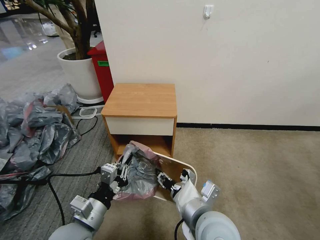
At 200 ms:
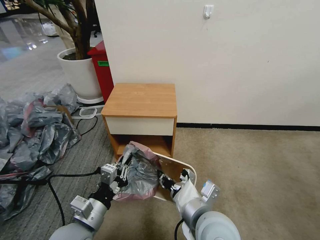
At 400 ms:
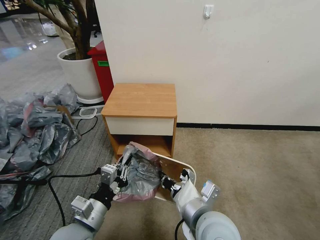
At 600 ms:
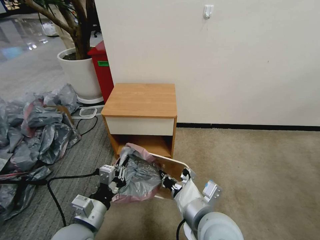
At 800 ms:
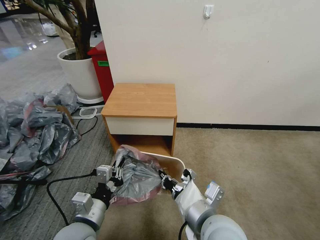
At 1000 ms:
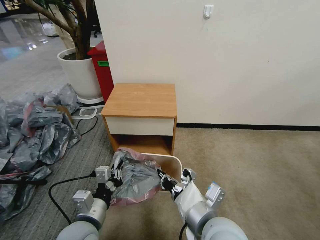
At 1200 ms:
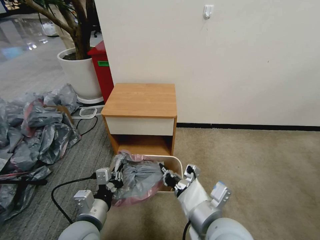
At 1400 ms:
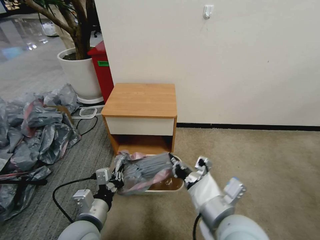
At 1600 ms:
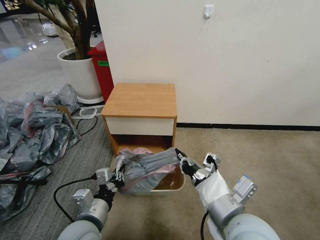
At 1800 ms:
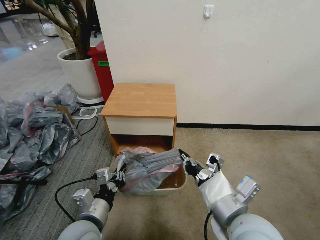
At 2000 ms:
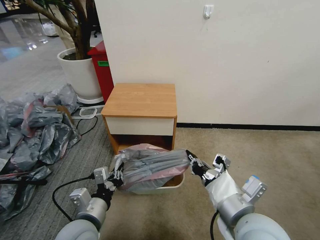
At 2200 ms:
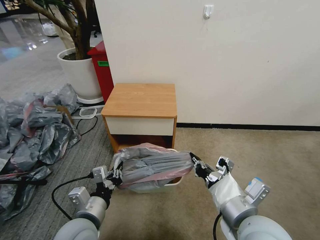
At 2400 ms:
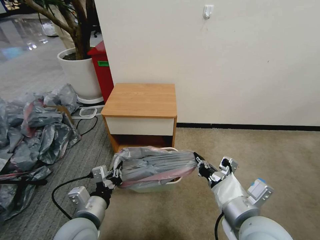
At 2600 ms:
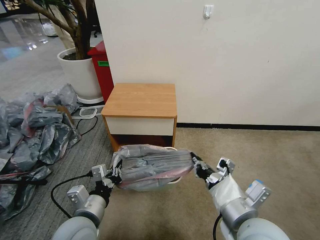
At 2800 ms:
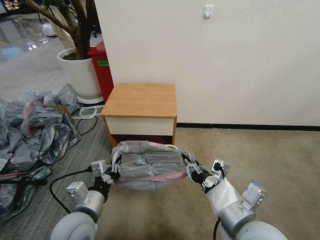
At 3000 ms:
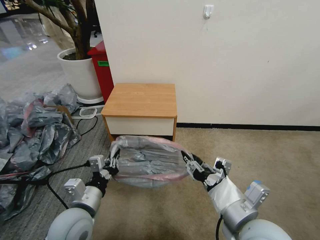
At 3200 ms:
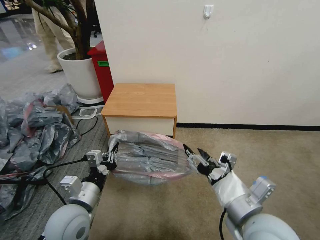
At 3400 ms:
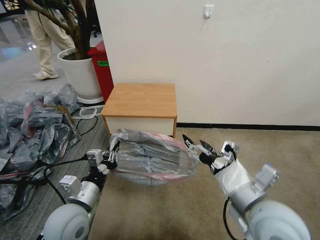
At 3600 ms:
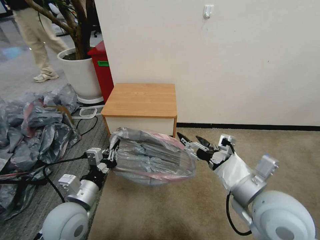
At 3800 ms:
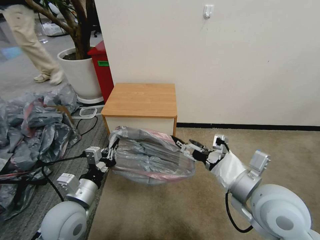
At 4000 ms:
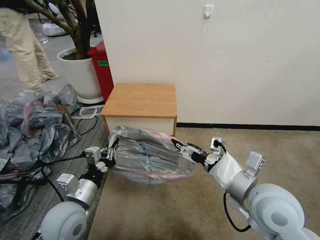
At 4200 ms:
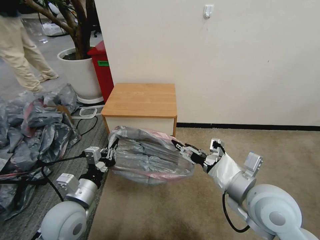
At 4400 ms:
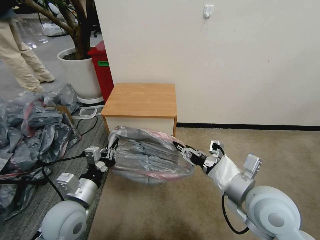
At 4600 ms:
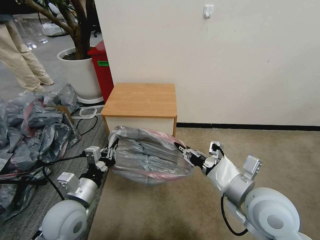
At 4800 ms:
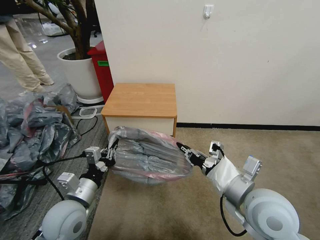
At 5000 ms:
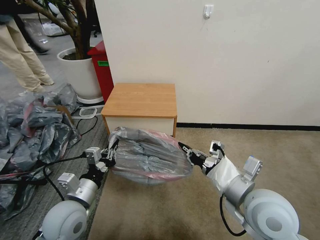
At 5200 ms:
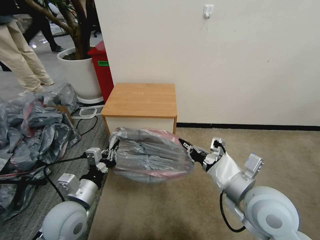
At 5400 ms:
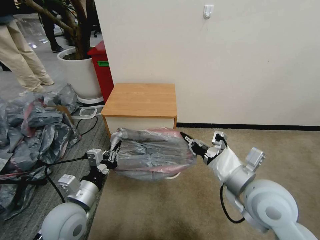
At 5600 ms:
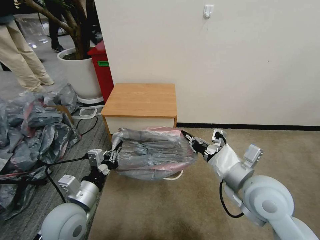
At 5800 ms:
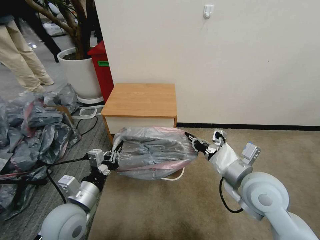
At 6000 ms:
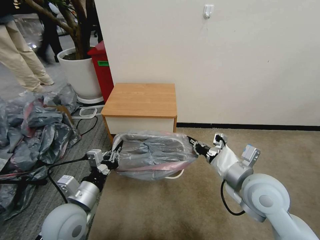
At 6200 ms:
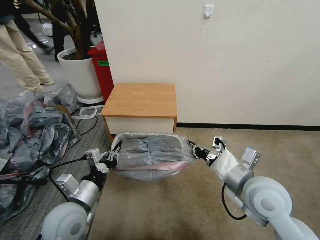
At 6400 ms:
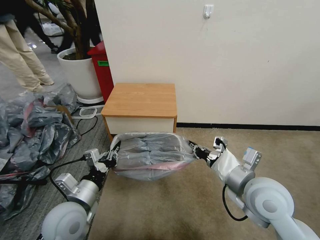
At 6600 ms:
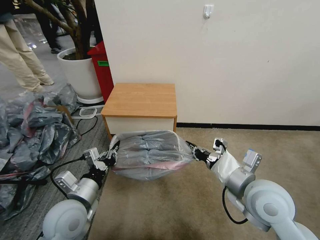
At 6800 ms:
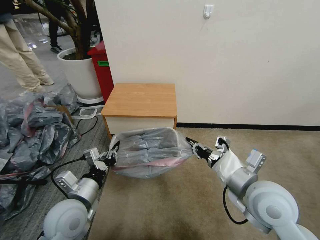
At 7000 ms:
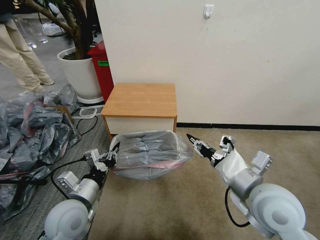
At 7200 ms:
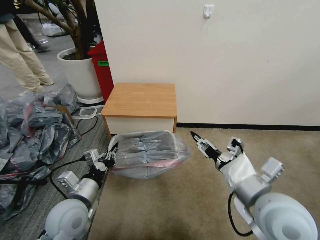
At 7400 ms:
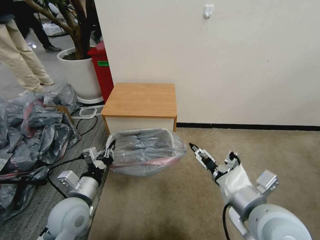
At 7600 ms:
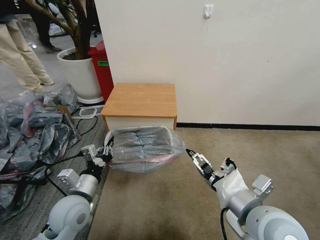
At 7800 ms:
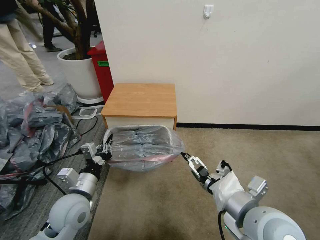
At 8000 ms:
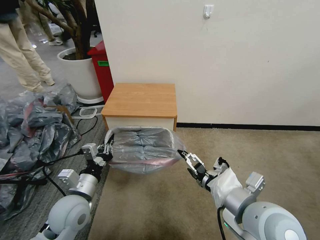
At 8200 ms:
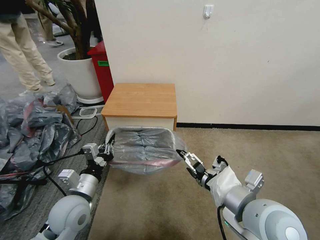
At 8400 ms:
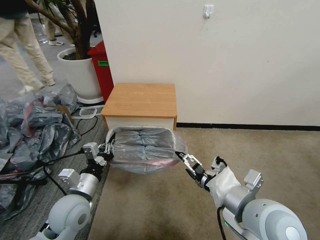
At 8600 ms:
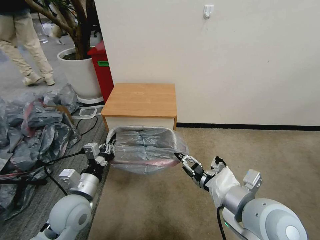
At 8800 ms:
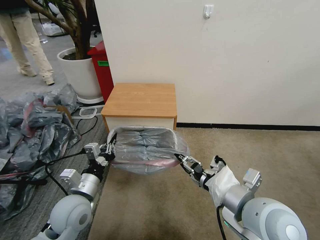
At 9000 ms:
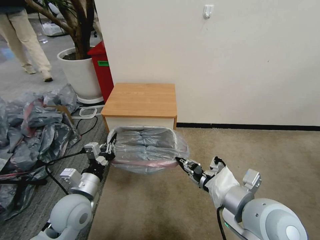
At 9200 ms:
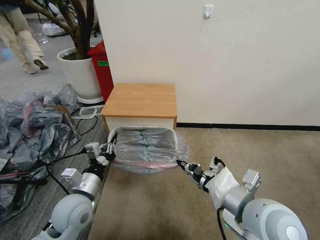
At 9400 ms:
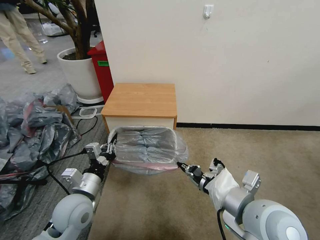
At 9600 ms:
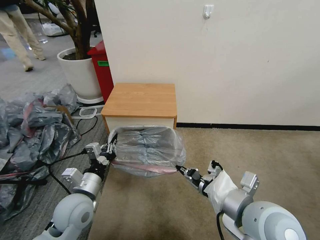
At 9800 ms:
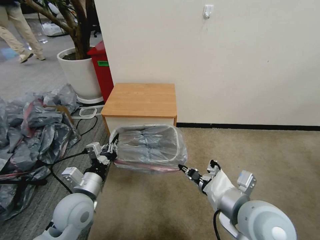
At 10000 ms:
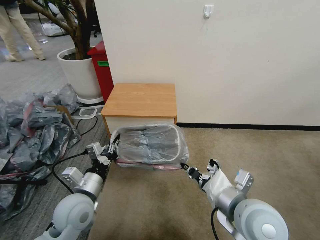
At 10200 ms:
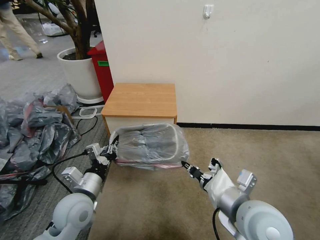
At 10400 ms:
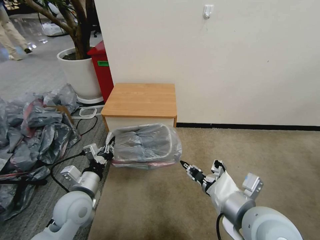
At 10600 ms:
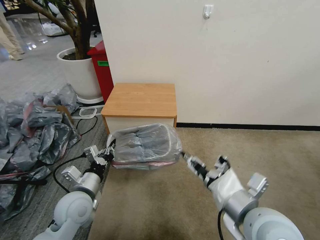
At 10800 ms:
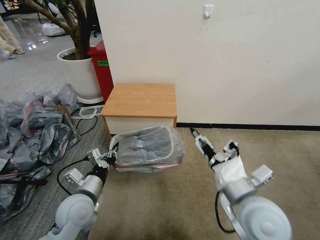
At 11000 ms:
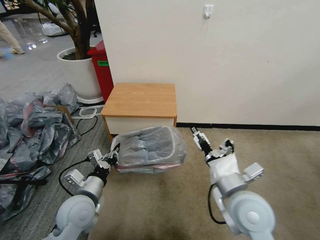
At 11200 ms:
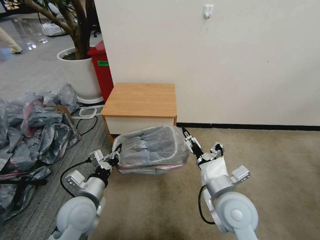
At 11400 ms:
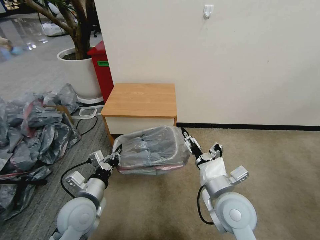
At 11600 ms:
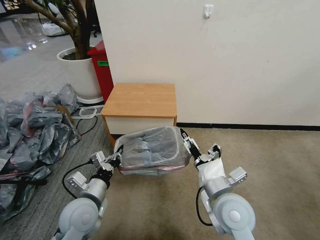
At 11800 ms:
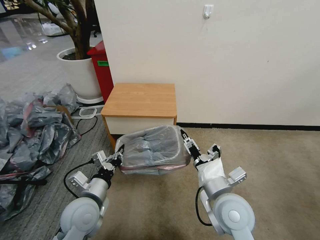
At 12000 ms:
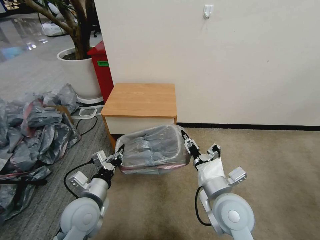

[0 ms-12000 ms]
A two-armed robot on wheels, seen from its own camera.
Task of the whole recording: Pick up the garbage bag from the table and place it over the trash can.
0 ms to 1600 ms: The right gripper moves to the right, some 5 cm, and closes up.
1600 ms to 3000 ms: The right gripper opens up.
3000 ms to 4400 ms: The right gripper goes approximately 5 cm forward, and opens and closes again.
4400 ms to 6000 ms: The right gripper closes up.
6000 ms to 7600 ms: The right gripper goes approximately 10 cm backward, and opens.
7600 ms to 9000 ms: The right gripper closes up.
9000 ms to 10400 ms: The grippers stay close to where they were, moving slightly.
10400 ms to 12000 ms: The right gripper moves downward and forward, some 10 cm, and opens, then closes again.

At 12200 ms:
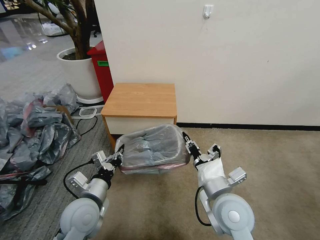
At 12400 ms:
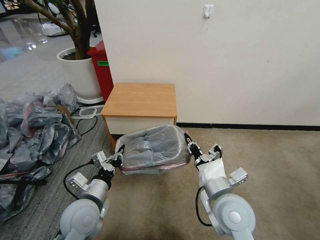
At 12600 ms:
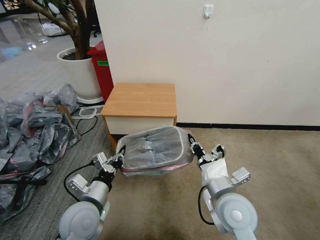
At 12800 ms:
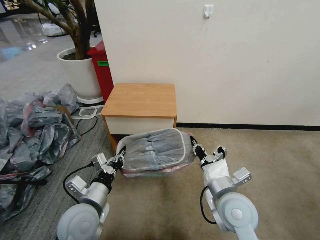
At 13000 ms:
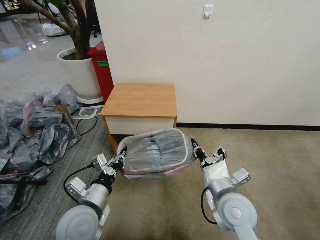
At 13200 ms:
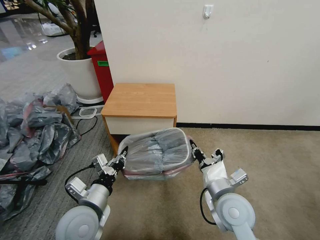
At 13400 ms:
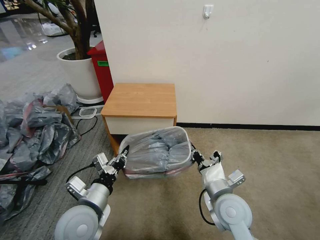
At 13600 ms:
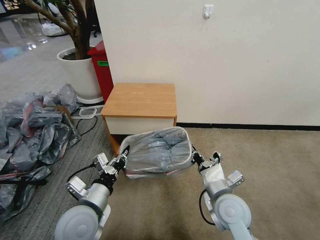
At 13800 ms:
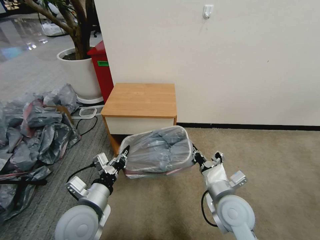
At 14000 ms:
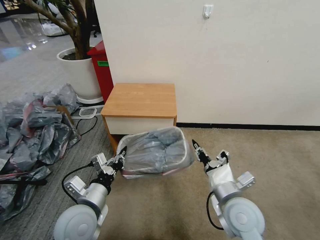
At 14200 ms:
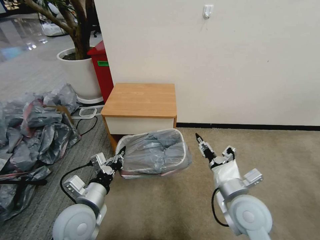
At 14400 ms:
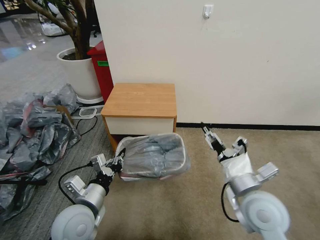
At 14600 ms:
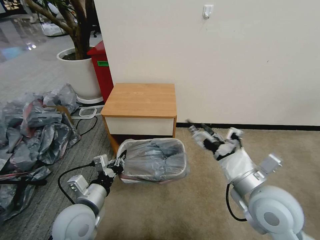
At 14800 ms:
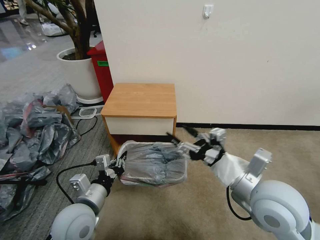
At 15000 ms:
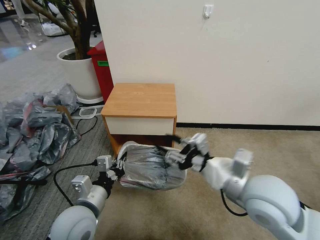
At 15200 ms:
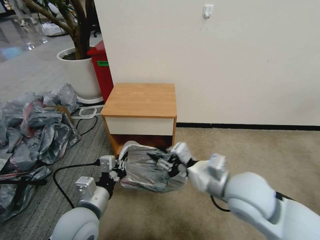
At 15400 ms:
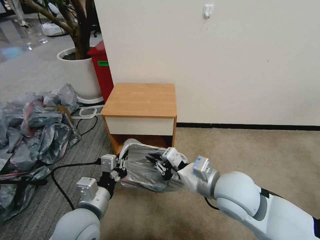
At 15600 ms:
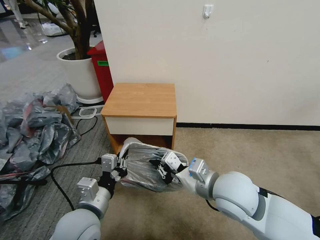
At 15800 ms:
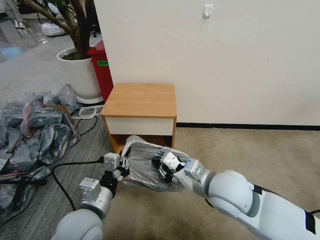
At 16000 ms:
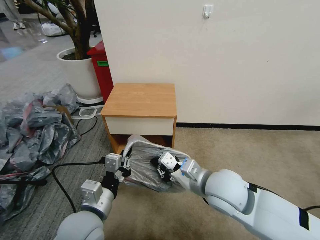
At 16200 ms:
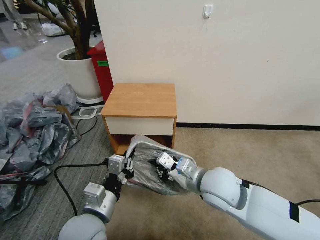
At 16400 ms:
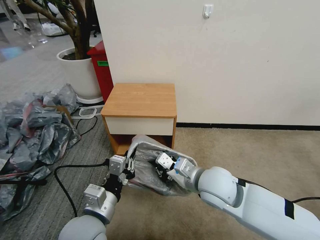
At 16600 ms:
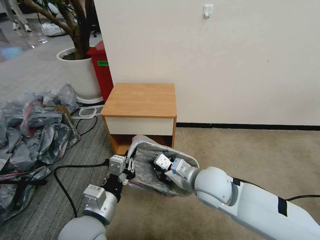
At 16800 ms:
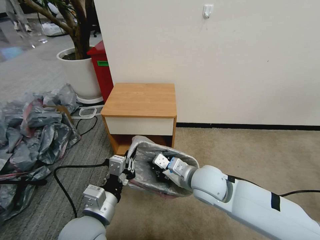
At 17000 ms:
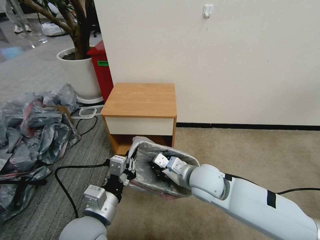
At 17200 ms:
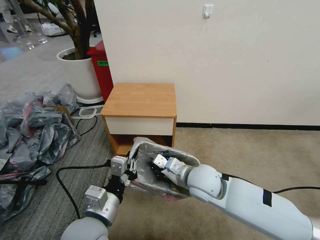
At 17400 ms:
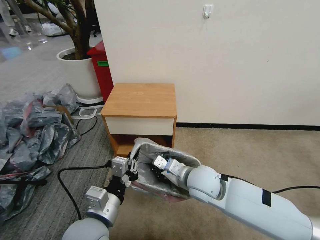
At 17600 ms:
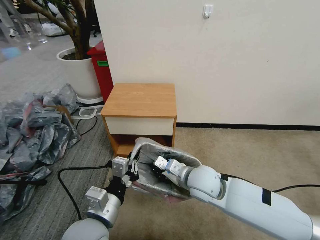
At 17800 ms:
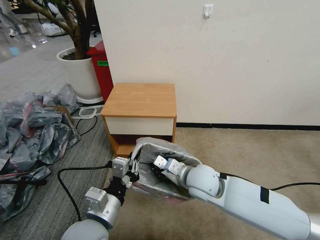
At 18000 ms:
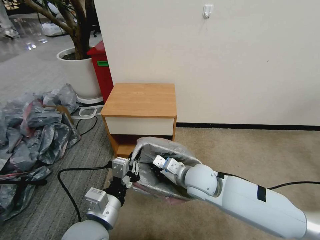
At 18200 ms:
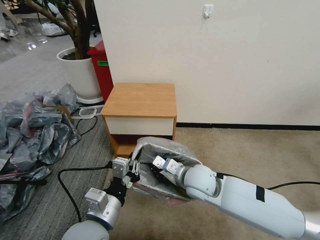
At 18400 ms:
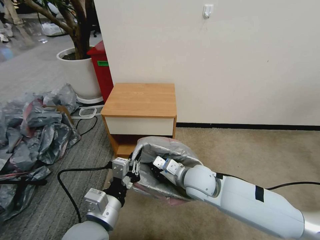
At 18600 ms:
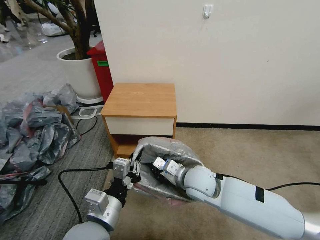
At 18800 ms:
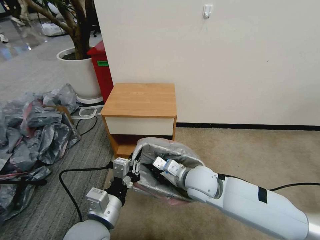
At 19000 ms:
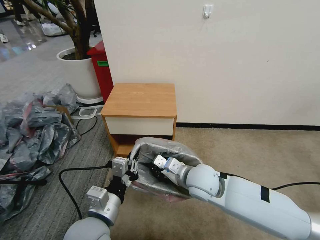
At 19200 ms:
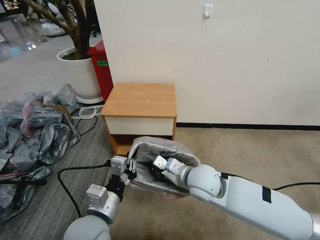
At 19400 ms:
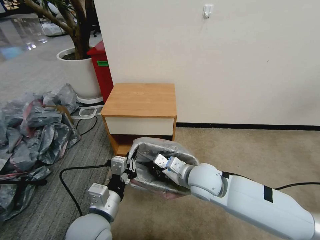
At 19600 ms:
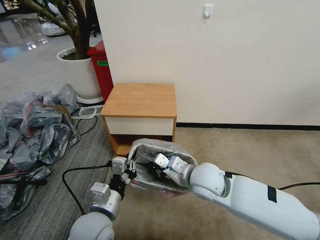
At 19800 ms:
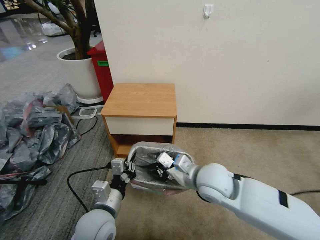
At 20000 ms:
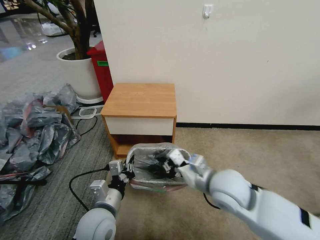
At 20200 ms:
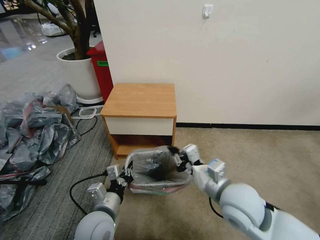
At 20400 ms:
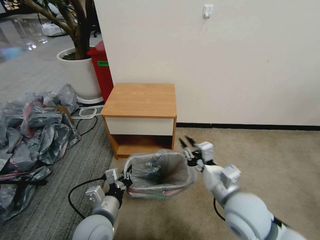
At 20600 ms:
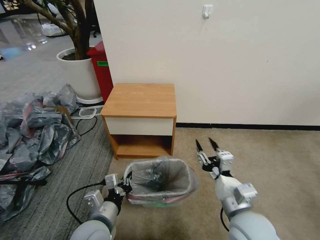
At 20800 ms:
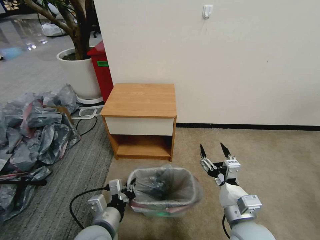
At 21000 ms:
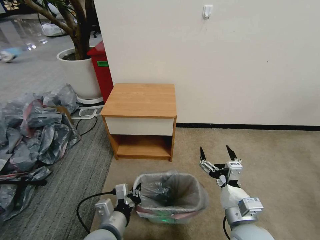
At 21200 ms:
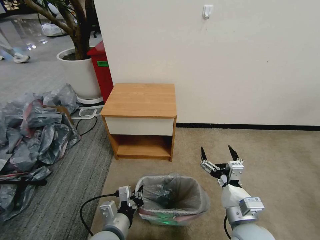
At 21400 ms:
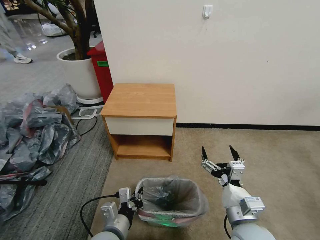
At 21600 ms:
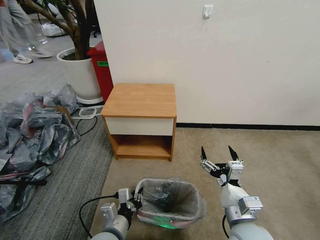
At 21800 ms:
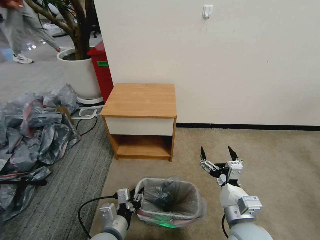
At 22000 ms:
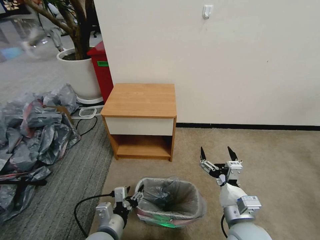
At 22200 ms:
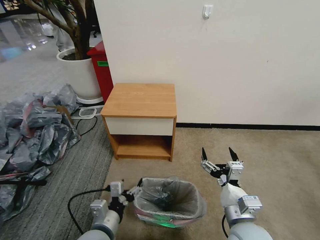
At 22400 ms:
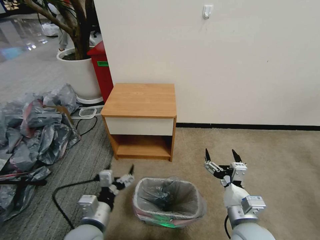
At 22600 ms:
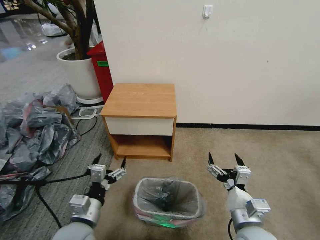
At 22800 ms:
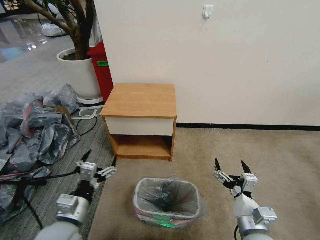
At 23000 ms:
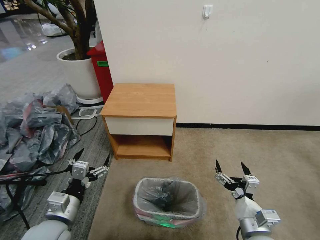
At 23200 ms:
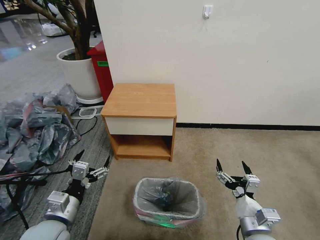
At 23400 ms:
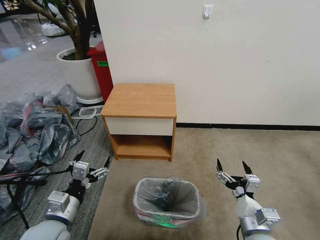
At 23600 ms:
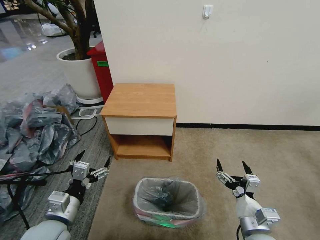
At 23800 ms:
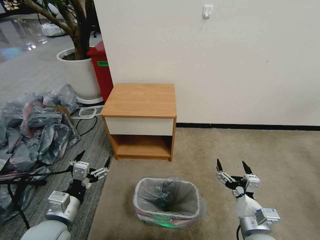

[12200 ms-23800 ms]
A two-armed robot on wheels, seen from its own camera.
Task of the whole recording: Pick up the garbage bag from the table and place it over the trash can.
12200 ms to 13600 ms: The right gripper goes some 5 cm downward.
13600 ms to 15000 ms: The right gripper shifts roughly 15 cm upward, and opens its fingers.
15000 ms to 16600 ms: The left gripper changes place by some 5 cm. The right gripper is displaced to the left, downward and forward by approximately 10 cm, and closes up.
16600 ms to 18000 ms: The right gripper ends up some 5 cm from where it was.
18000 ms to 19400 ms: The grippers move only a little.
19400 ms to 21000 ms: The left gripper travels downward by roughly 5 cm, while the right gripper is displaced backward and to the right by roughly 15 cm, and opens its fingers.
21000 ms to 22400 ms: The left gripper opens its fingers.
22400 ms to 23800 ms: The right gripper moves roughly 5 cm. The left gripper goes approximately 10 cm to the left.
